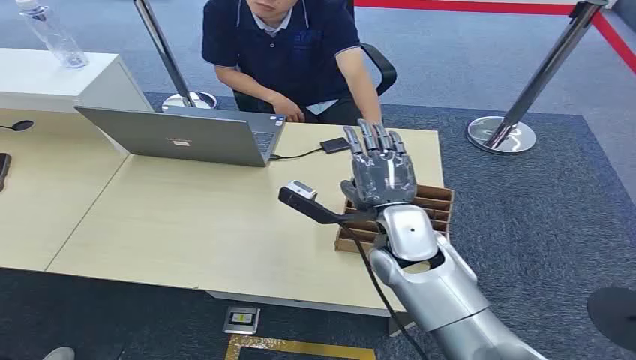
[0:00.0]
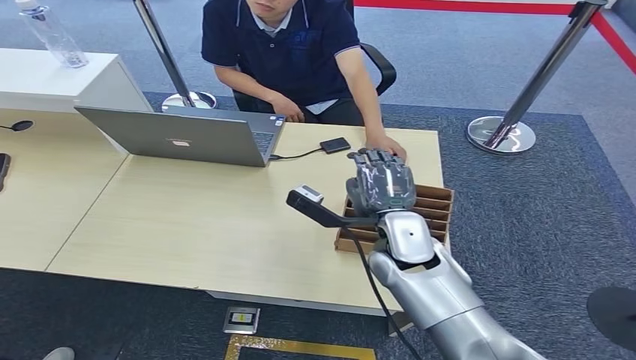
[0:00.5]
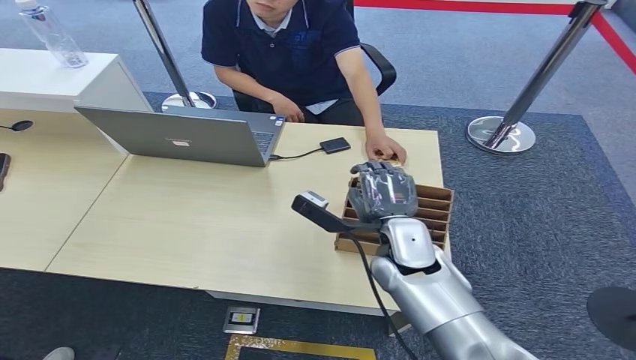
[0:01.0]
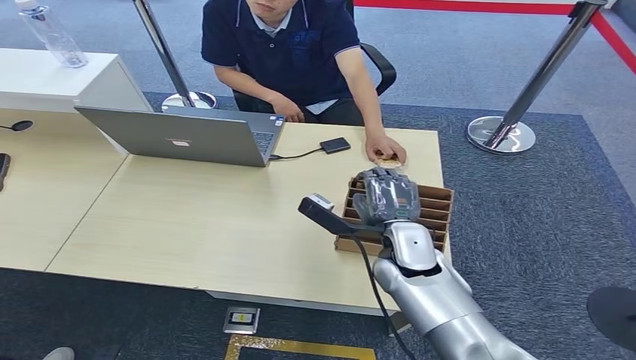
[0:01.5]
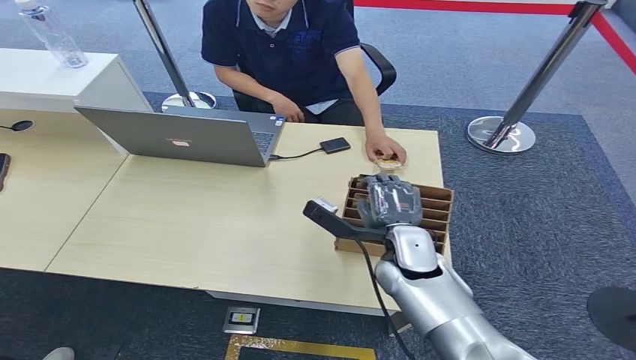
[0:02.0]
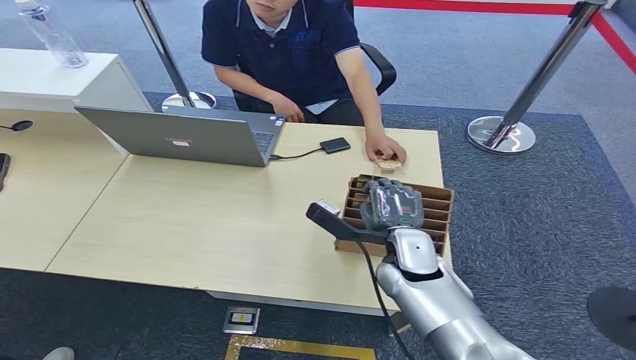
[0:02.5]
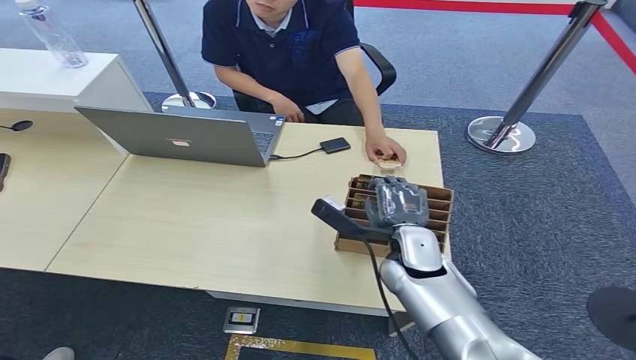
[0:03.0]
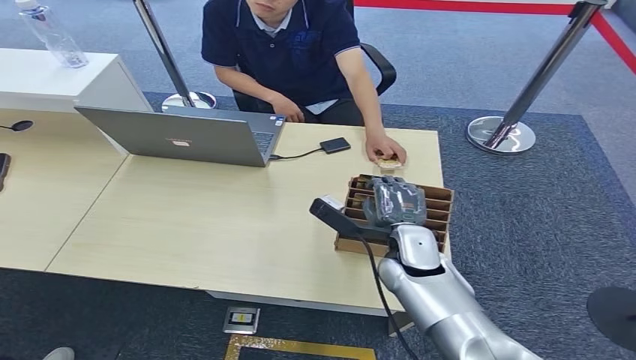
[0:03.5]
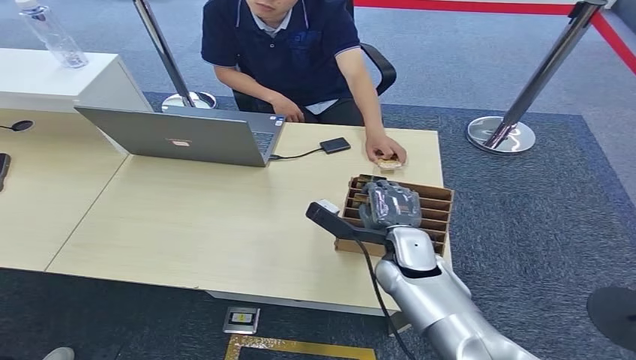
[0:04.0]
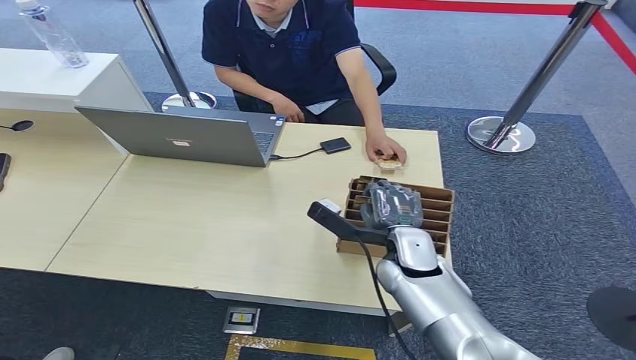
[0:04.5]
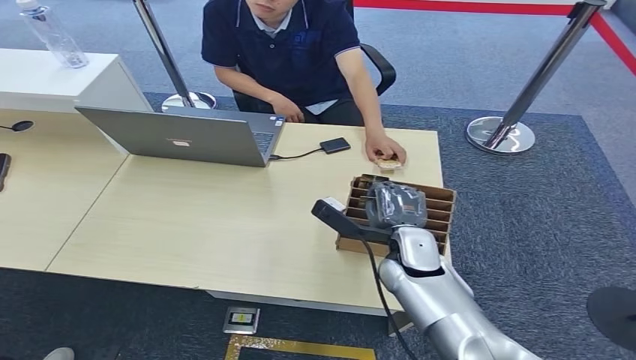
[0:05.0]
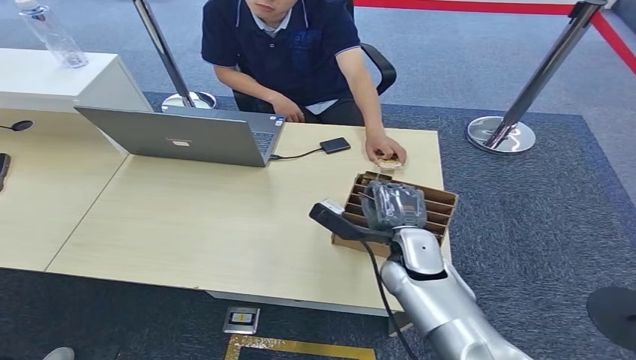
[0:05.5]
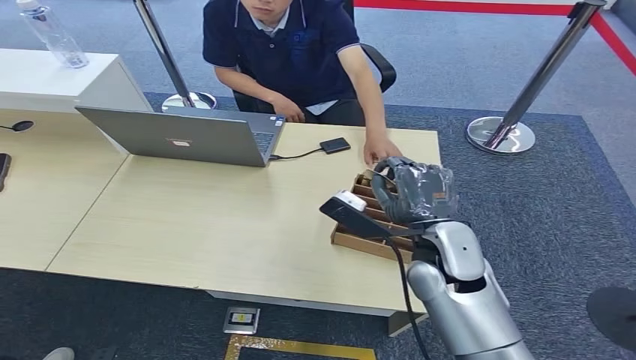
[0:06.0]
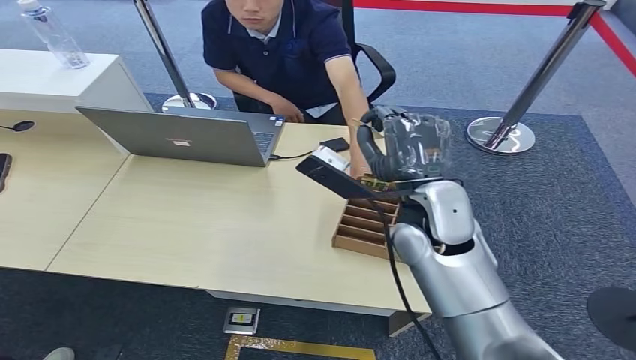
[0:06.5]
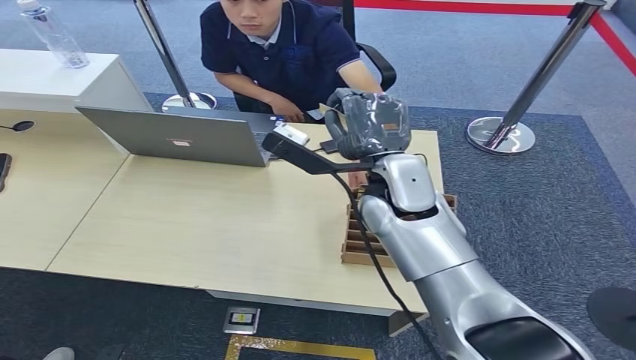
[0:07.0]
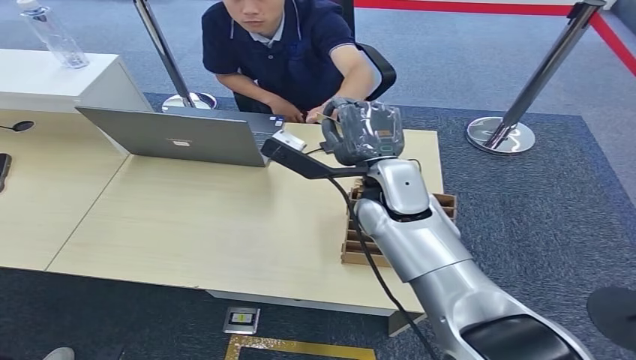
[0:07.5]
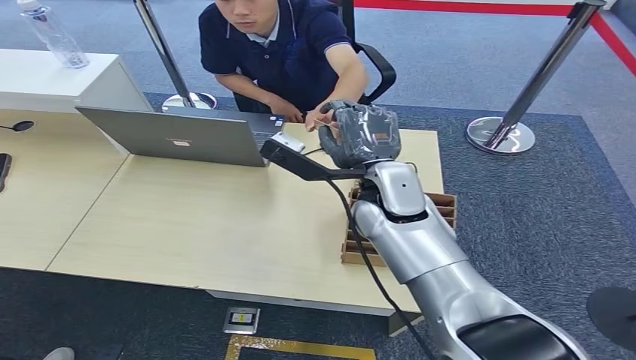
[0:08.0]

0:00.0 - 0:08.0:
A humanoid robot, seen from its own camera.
Step, 0:00.0 - 0:05.0: Pick up the room card from the card holder.
Step, 0:05.5 - 0:08.0: Hand the room card to the target.
0:02.0 - 0:04.0: Neither hand changes place.
0:04.0 - 0:06.0: The right hand heads upward, covering about 5 cm.
0:06.0 - 0:08.0: The right hand moves forward, upward and to the left, approximately 10 cm.
